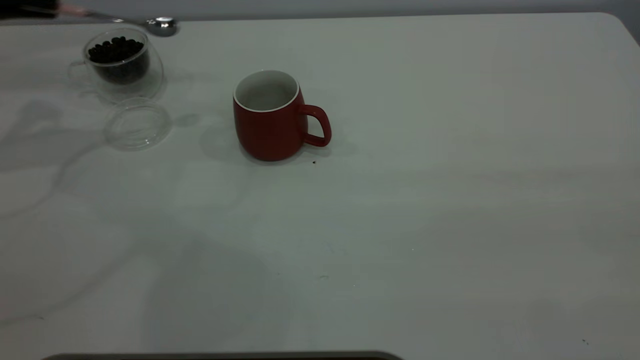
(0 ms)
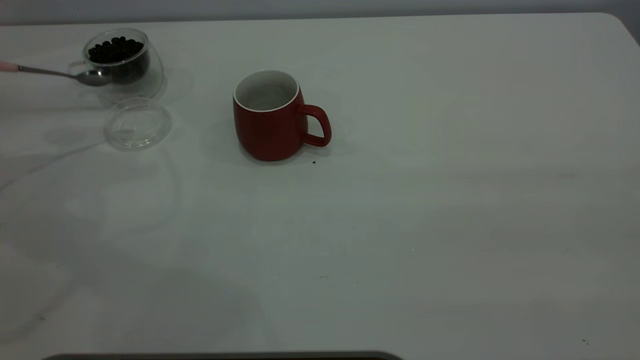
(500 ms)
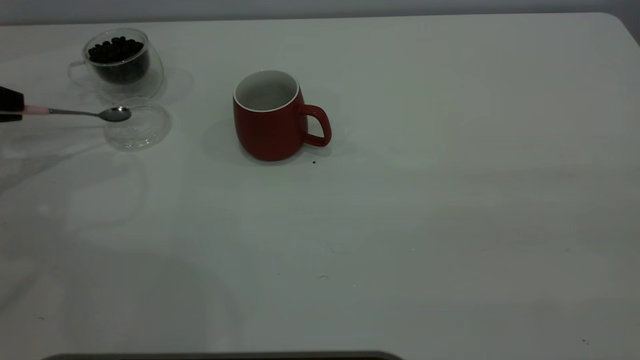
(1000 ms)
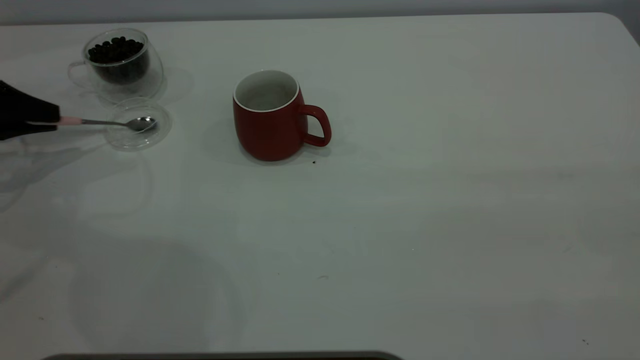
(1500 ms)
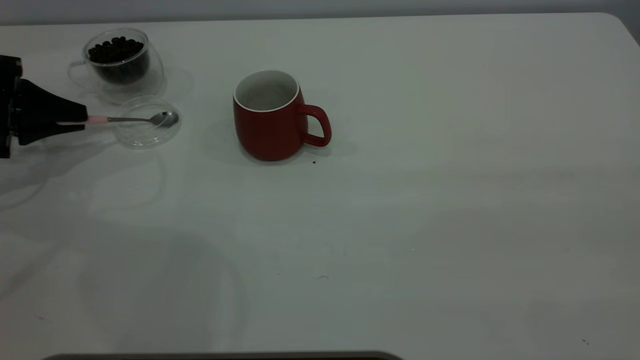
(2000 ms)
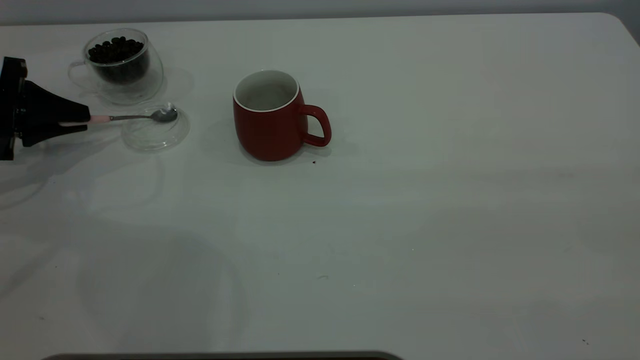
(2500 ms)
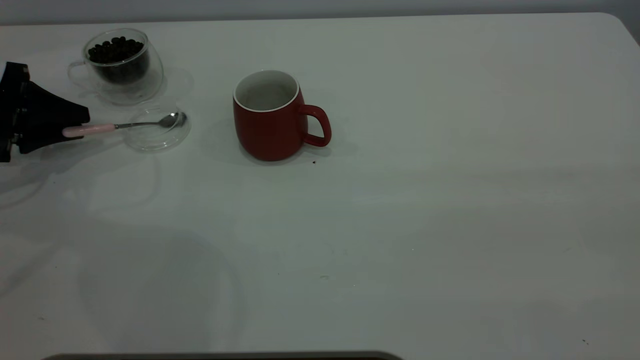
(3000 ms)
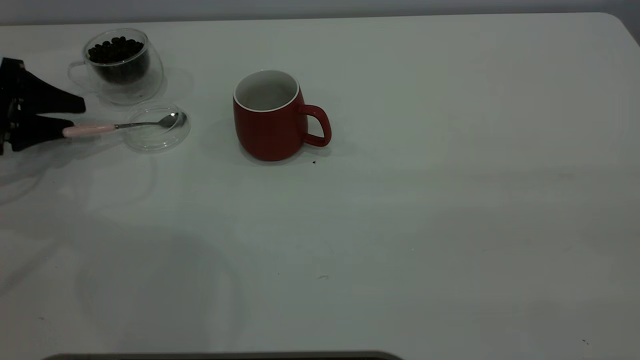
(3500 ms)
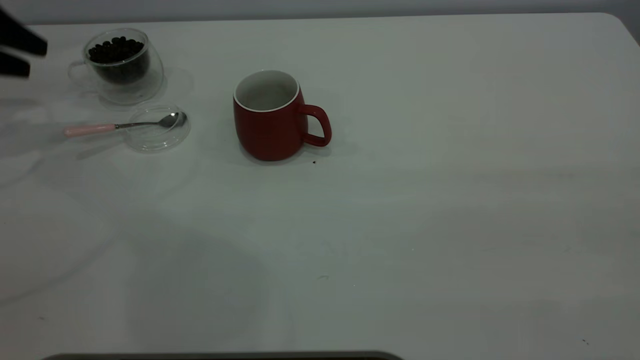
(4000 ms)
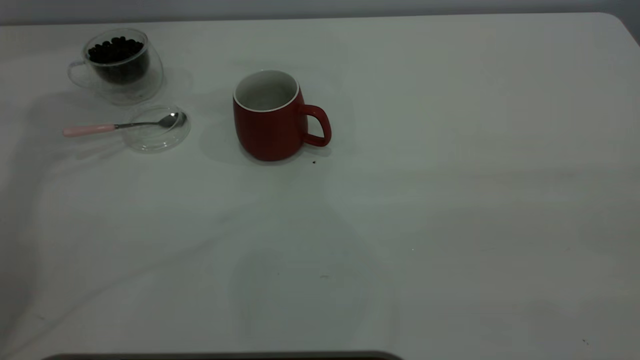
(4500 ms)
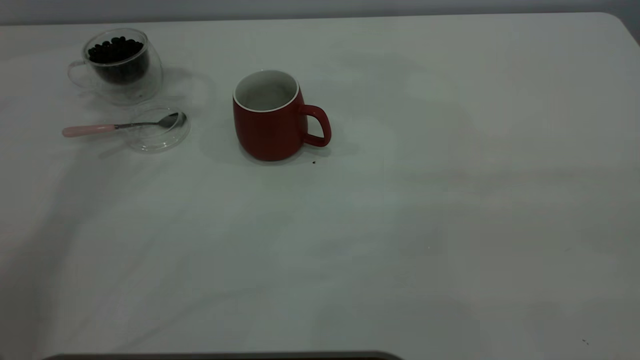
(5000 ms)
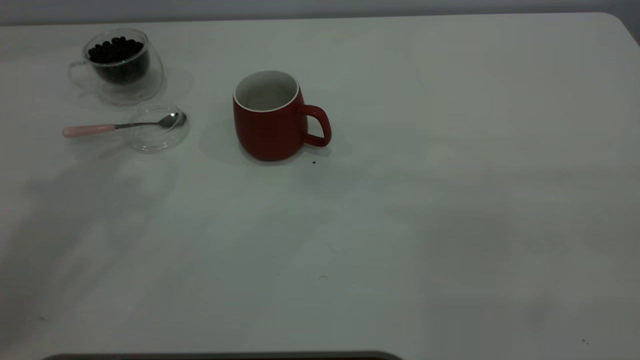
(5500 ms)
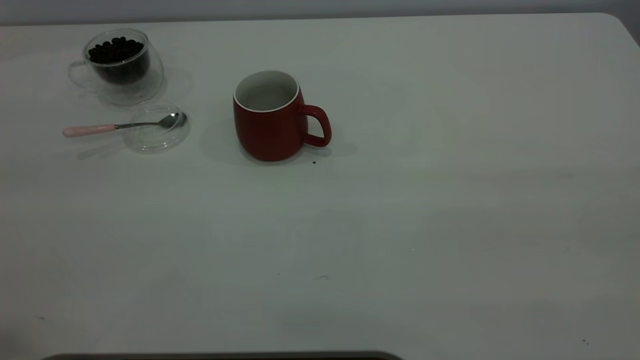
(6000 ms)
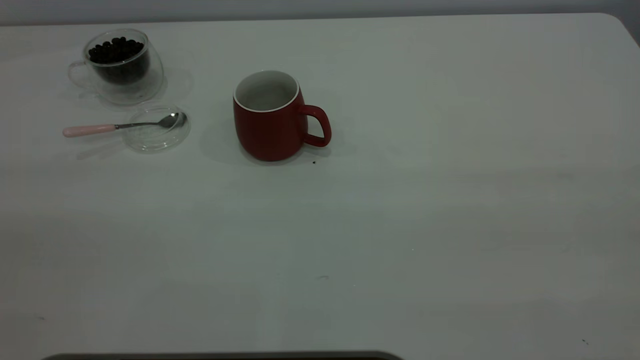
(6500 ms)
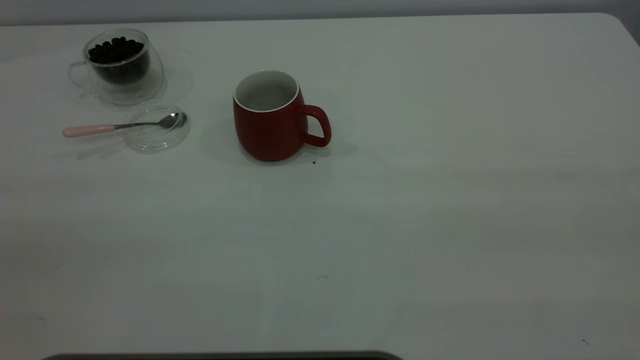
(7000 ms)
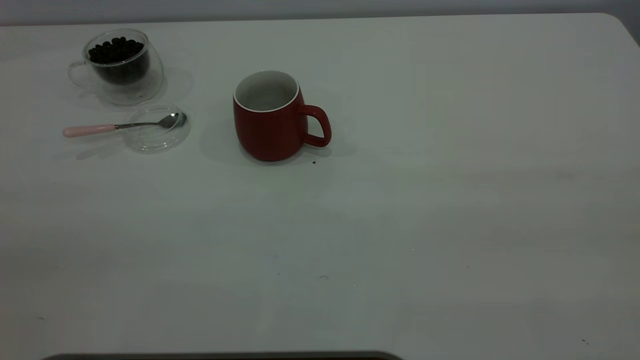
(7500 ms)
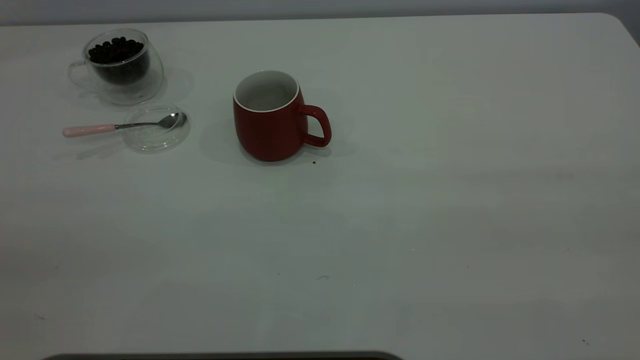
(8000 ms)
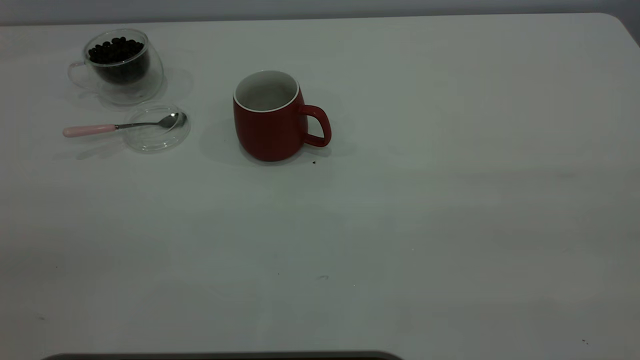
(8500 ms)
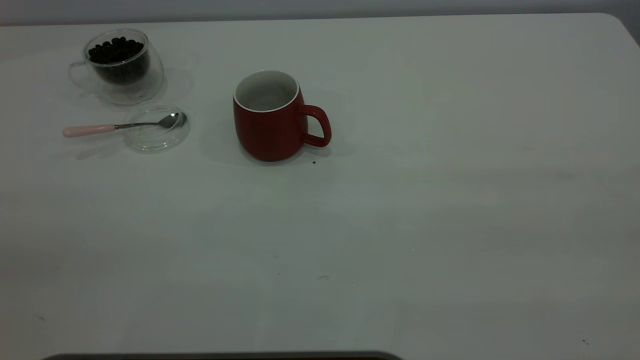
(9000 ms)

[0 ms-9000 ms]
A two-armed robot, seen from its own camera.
Task of the whole recording: the right gripper place the red cup in the center of the table, the left gripper take the pink spoon from the cup lid and scoop out the coffee beans from the coffee cup and put them into the red cup, the left gripper put the spoon back into the cup lid.
Step, 0 ms to 3500 ms: Place the spoon back in its original place.
0 ms to 2000 ms: The left gripper goes about 15 cm downward.
2000 ms to 4500 ms: The left gripper goes approximately 30 cm upward, to the right and forward, and opens.

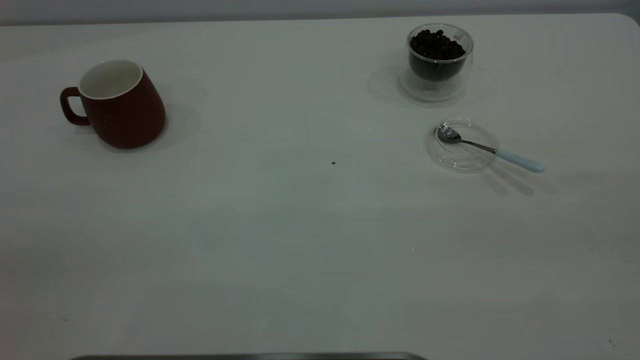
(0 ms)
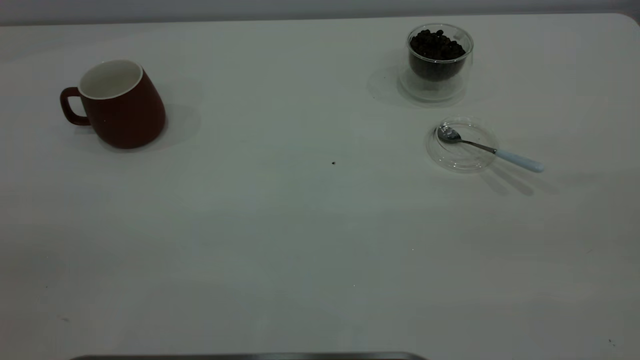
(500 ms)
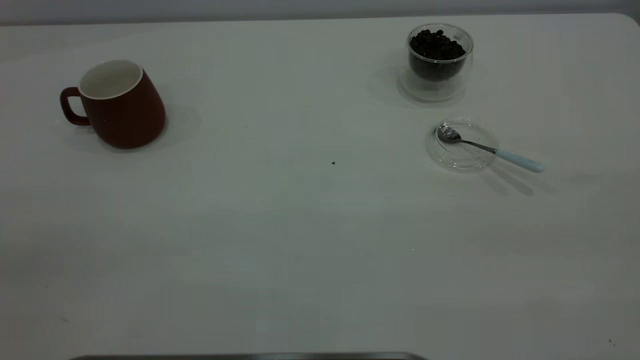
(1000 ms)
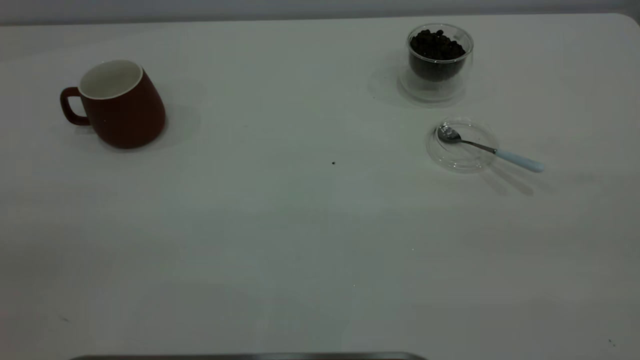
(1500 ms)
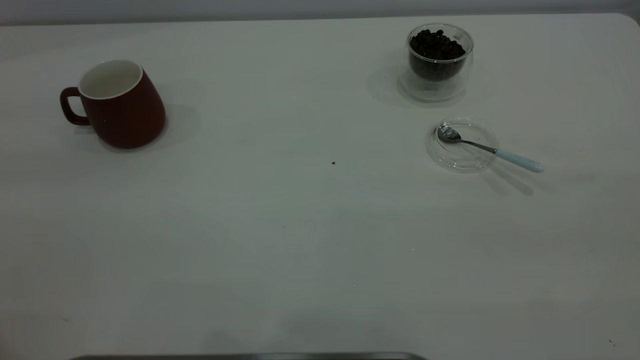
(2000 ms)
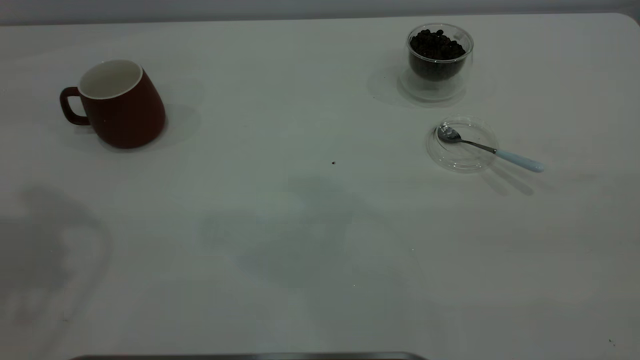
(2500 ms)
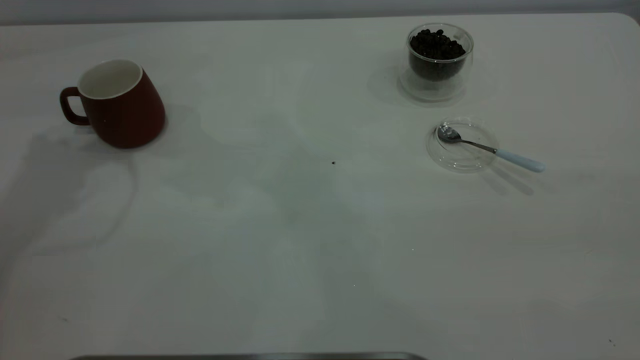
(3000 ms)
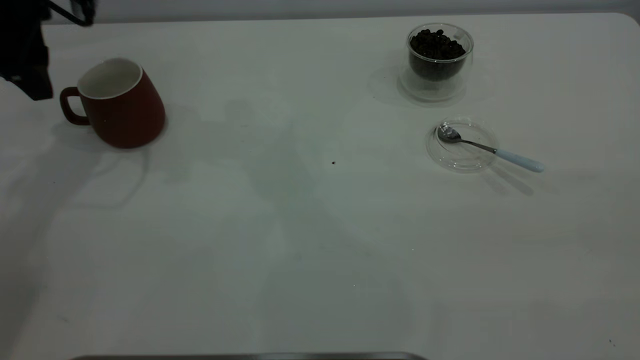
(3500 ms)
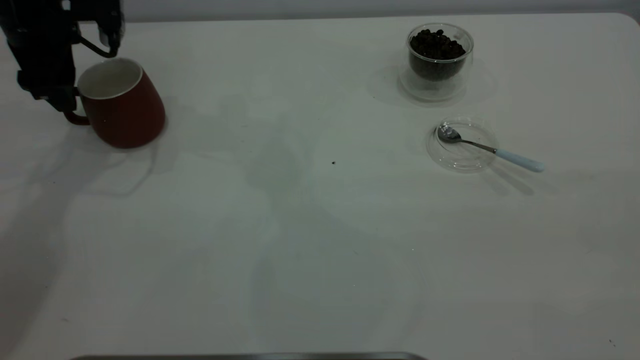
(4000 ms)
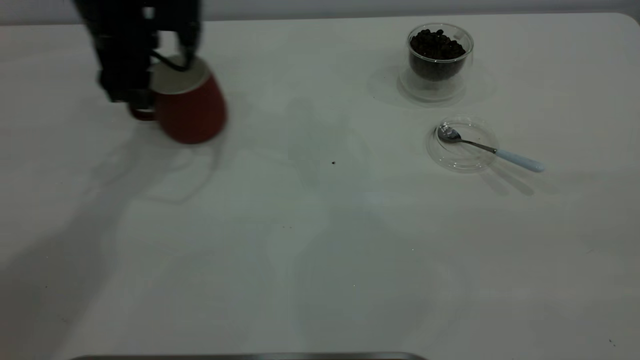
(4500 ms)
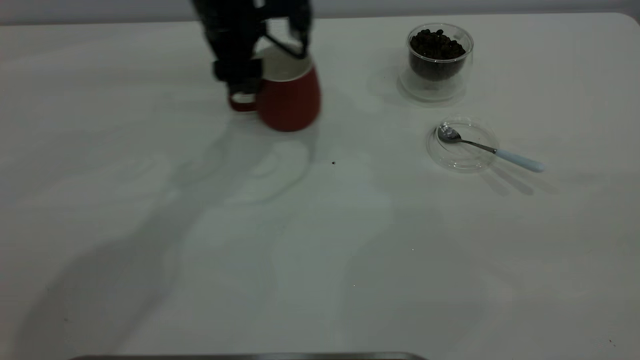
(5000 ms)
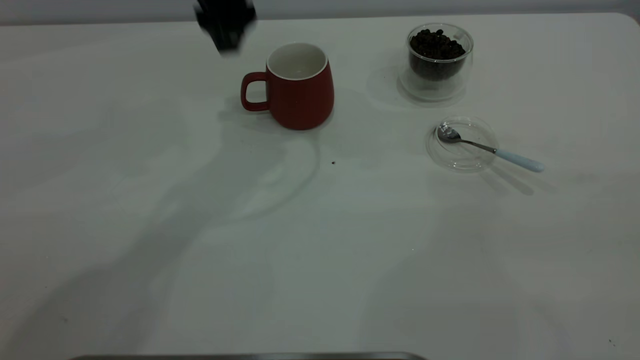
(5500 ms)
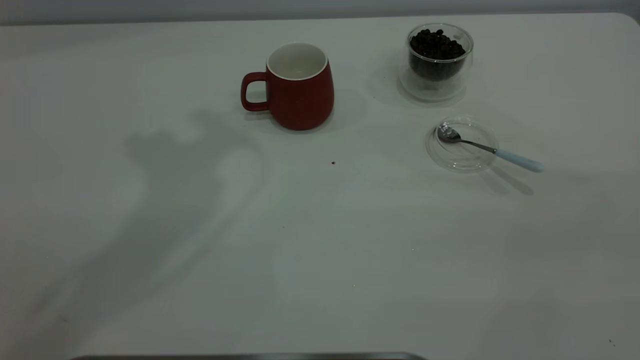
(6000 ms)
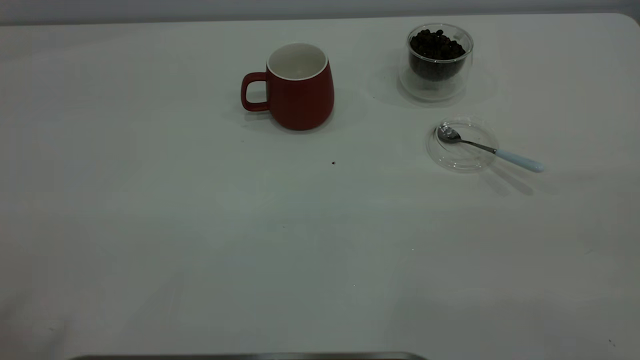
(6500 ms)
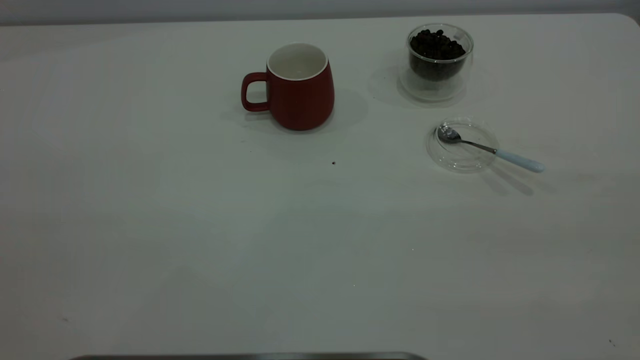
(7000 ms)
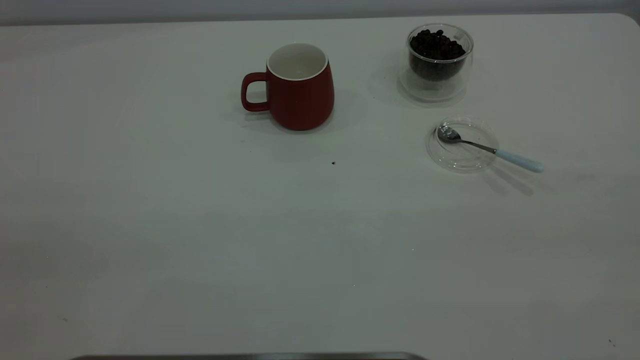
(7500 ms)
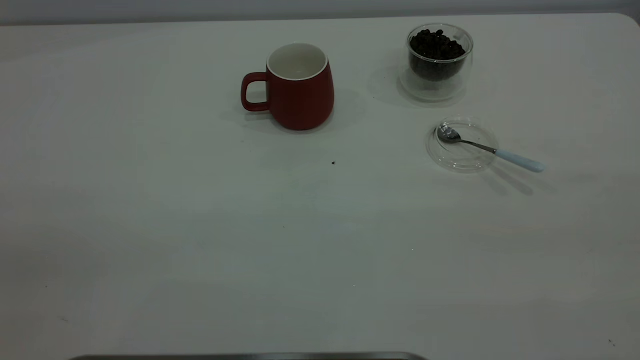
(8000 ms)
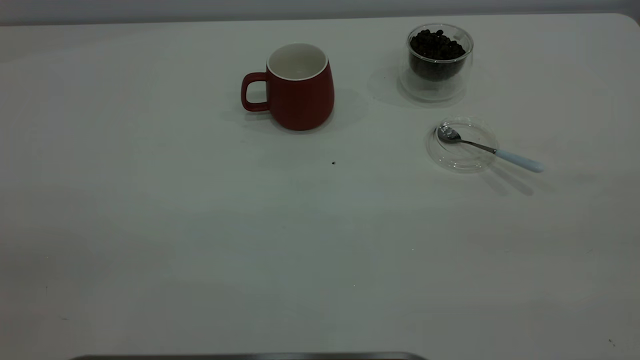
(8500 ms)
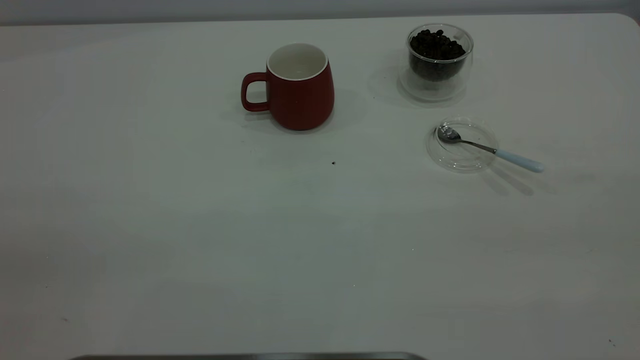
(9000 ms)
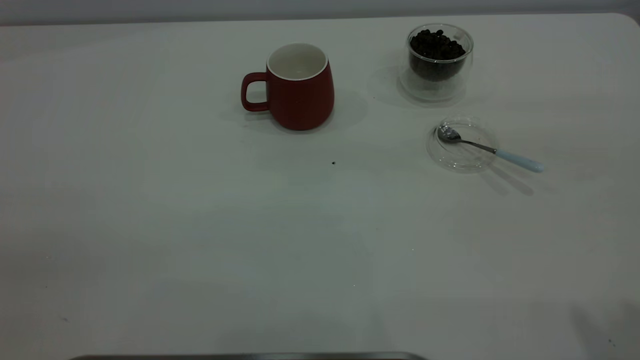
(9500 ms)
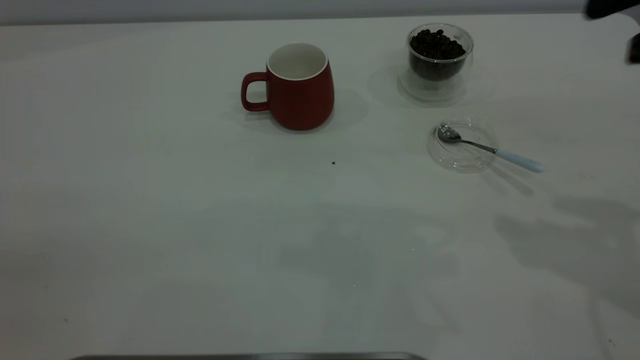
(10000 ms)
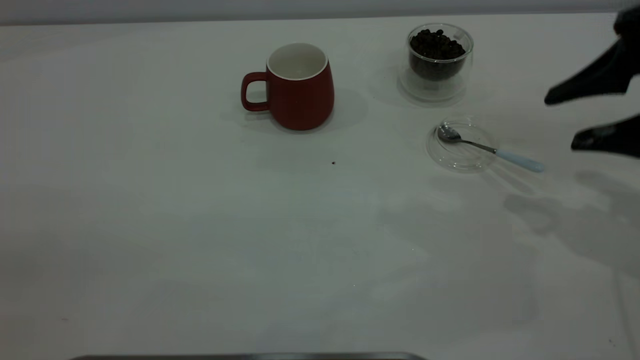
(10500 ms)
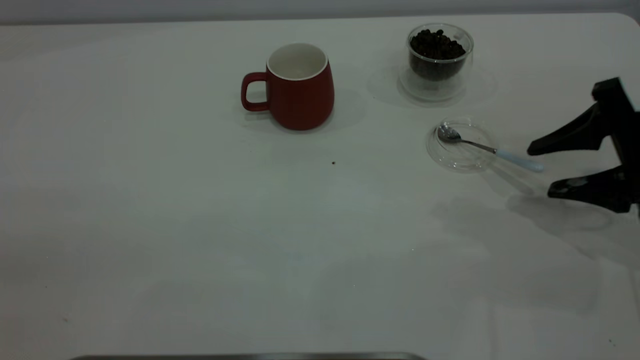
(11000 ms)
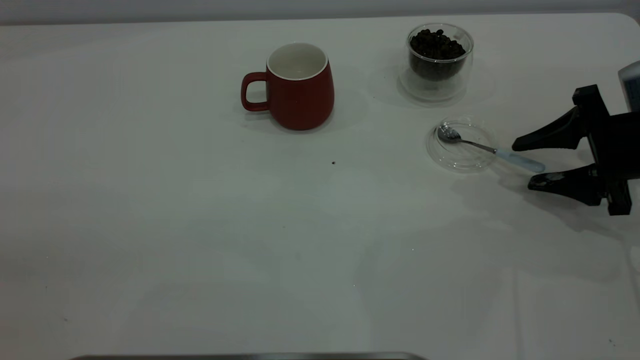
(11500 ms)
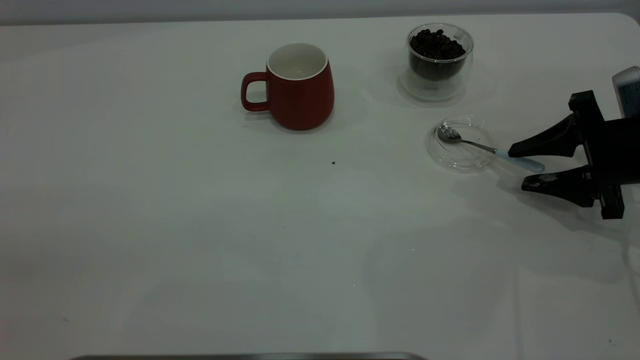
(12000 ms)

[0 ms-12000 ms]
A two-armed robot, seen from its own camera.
Task of the whole recording: the left gripper place the red cup in the center of the table, the right gripper take the blue spoon from the cup lid and scoop out the coffee beans from the coffee cup and put them into the red cup, the right gripper put the spoon back into the cup lid.
Step, 0 ms to 5500 ms: Move the cup to the center of view.
2000 ms to 4000 ms: The left gripper moves forward and downward, some 40 cm.
4000 ms to 6000 ms: The left gripper goes approximately 35 cm upward and to the right.
10000 ms to 12000 ms: The right gripper goes about 20 cm downward.
